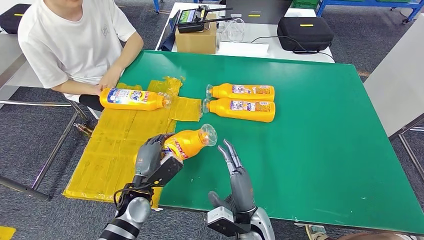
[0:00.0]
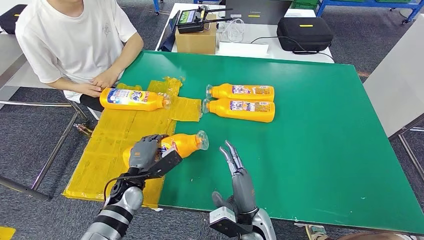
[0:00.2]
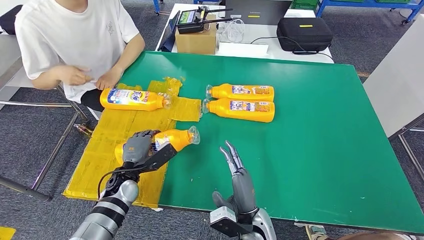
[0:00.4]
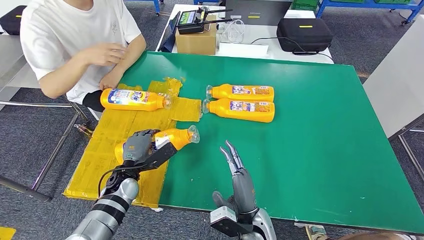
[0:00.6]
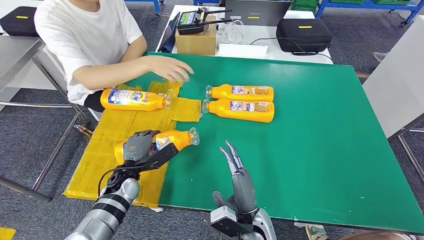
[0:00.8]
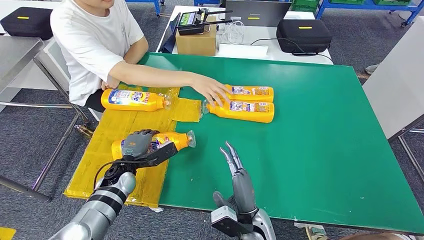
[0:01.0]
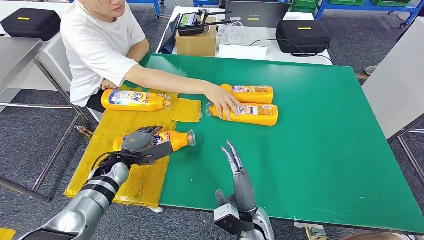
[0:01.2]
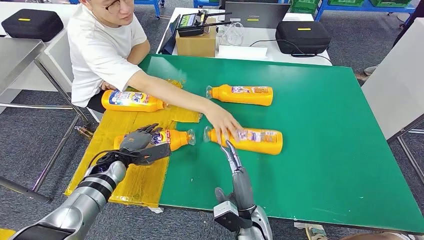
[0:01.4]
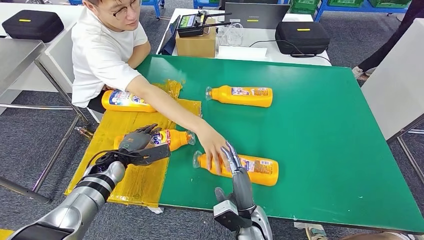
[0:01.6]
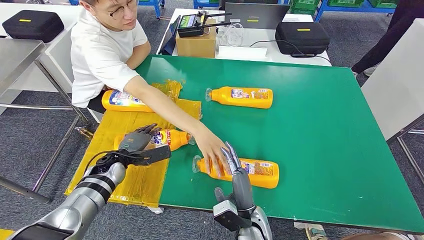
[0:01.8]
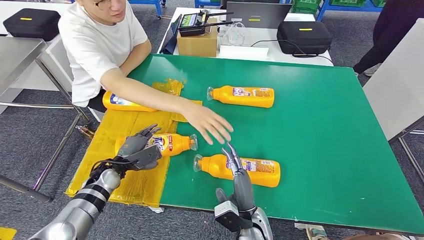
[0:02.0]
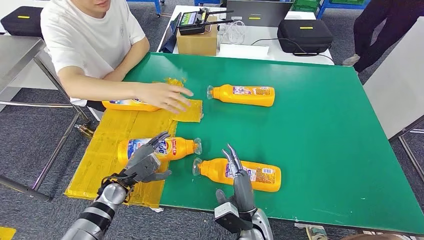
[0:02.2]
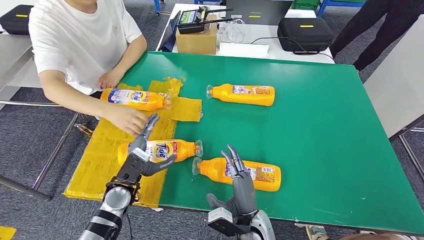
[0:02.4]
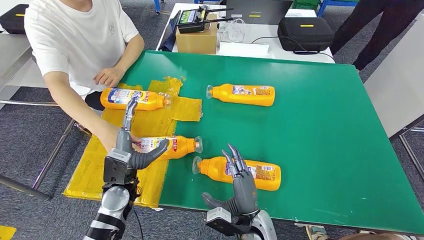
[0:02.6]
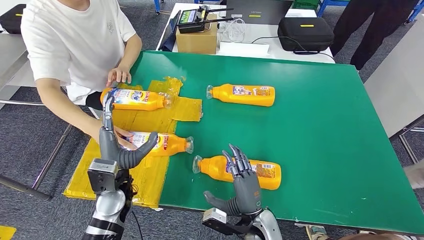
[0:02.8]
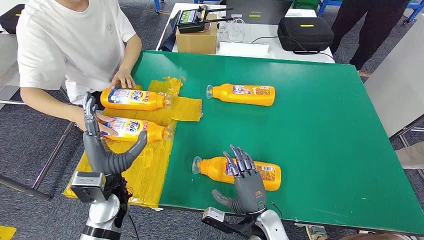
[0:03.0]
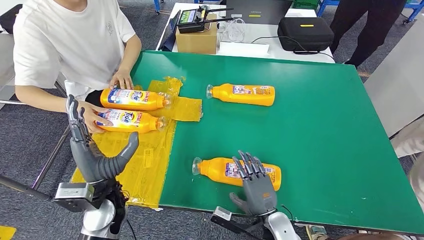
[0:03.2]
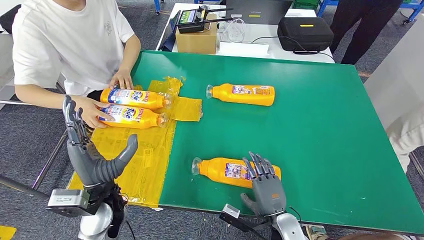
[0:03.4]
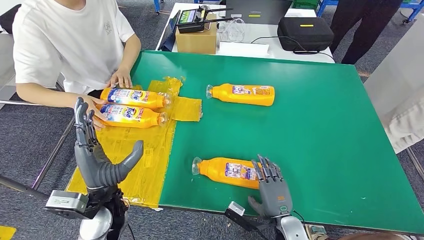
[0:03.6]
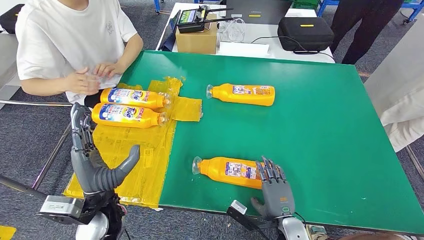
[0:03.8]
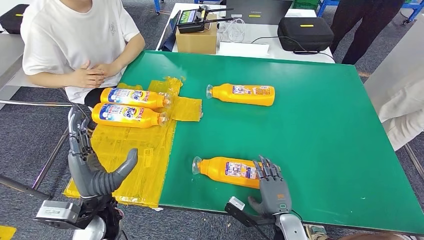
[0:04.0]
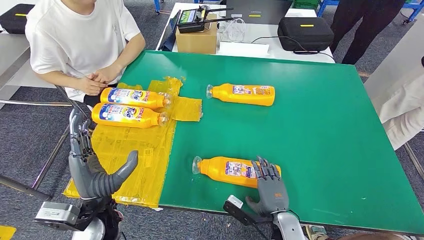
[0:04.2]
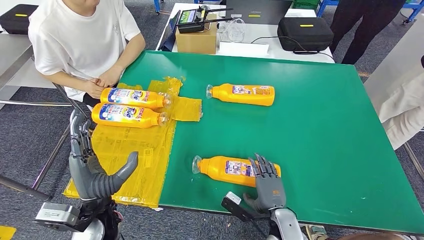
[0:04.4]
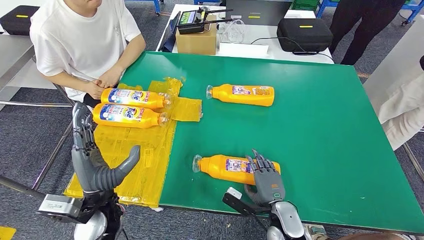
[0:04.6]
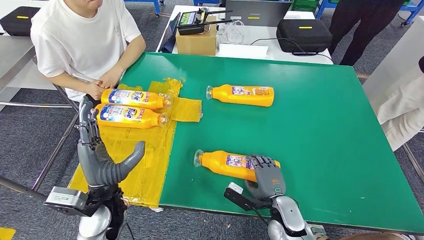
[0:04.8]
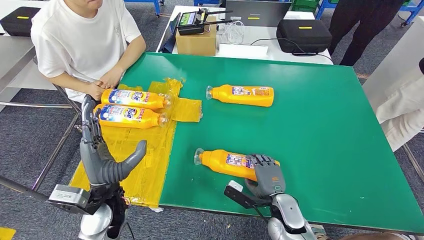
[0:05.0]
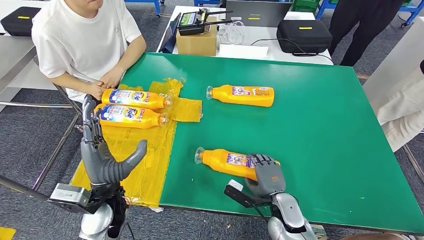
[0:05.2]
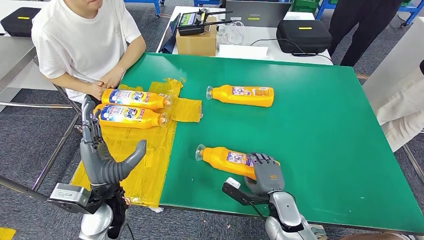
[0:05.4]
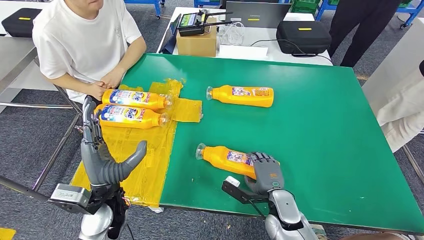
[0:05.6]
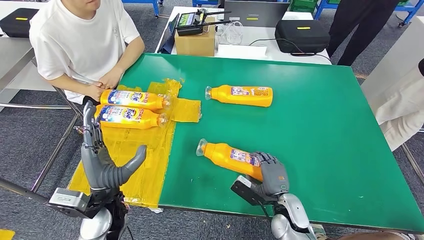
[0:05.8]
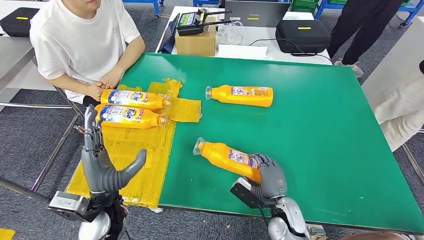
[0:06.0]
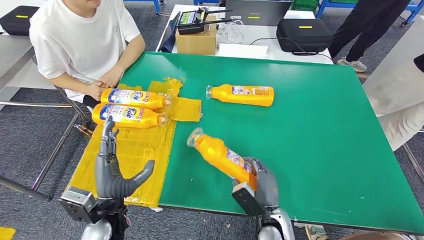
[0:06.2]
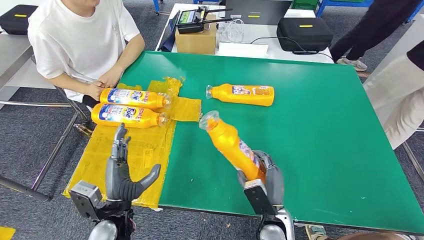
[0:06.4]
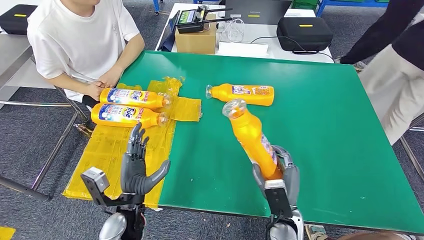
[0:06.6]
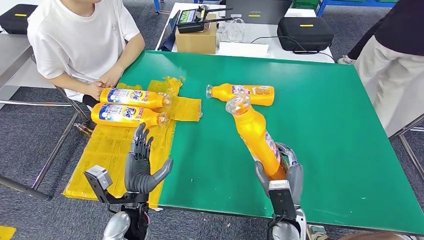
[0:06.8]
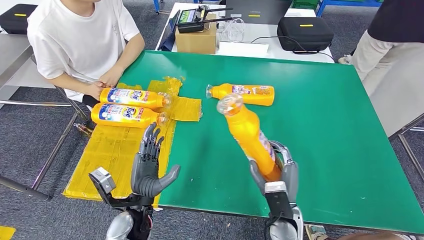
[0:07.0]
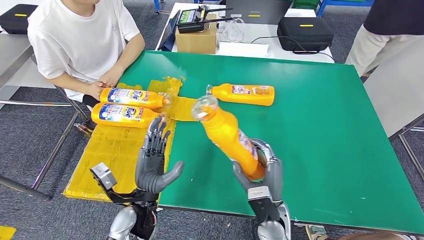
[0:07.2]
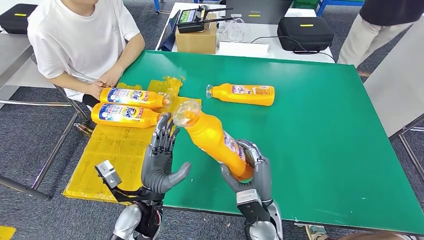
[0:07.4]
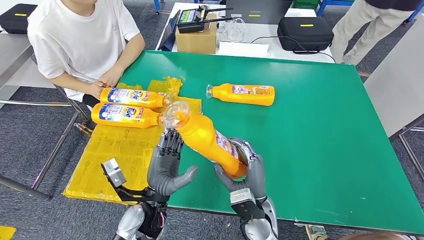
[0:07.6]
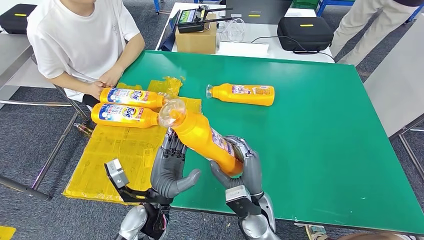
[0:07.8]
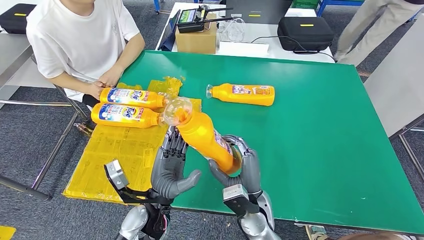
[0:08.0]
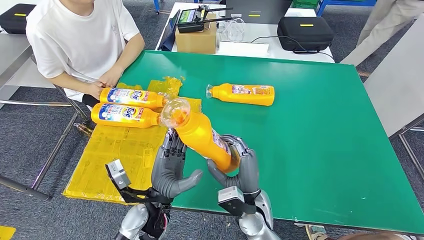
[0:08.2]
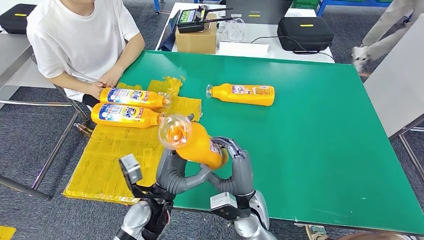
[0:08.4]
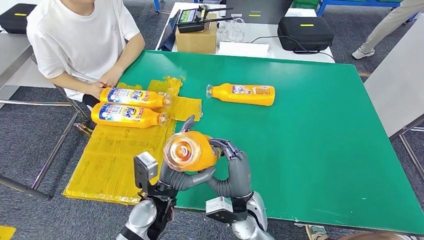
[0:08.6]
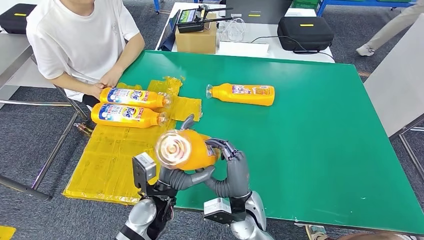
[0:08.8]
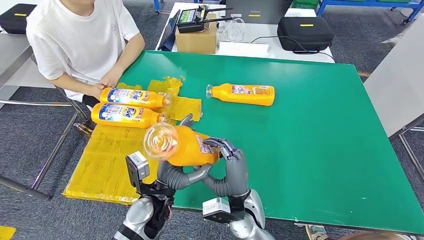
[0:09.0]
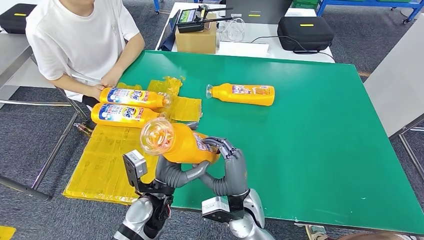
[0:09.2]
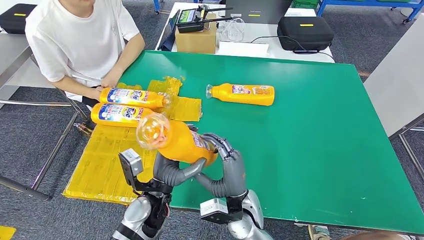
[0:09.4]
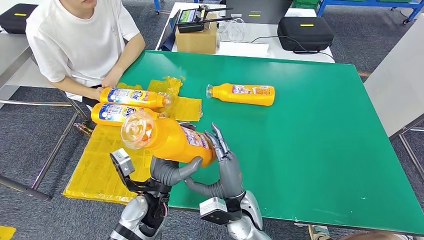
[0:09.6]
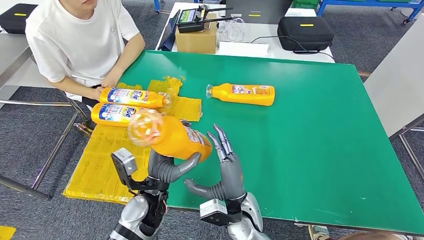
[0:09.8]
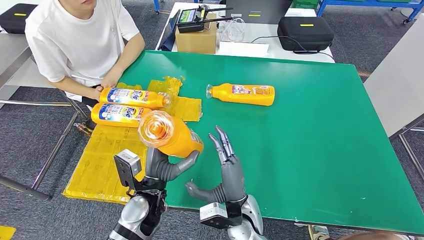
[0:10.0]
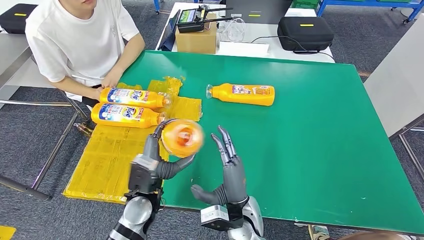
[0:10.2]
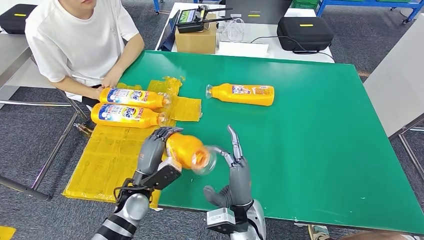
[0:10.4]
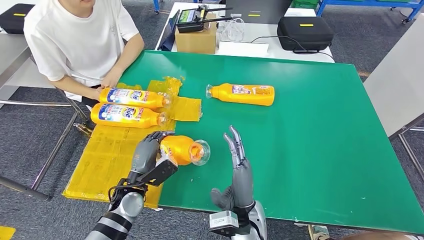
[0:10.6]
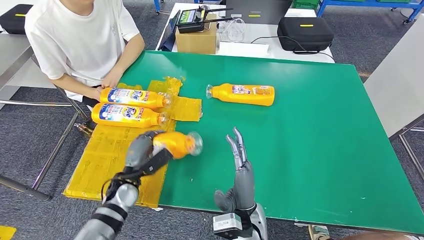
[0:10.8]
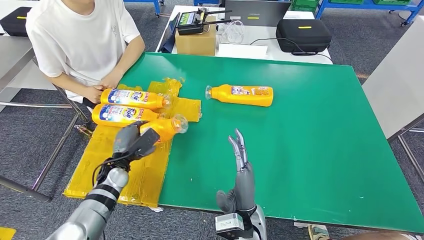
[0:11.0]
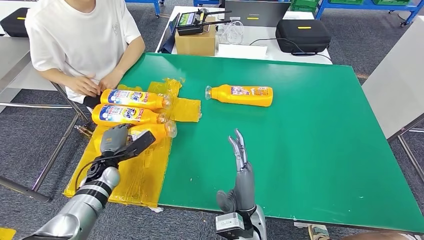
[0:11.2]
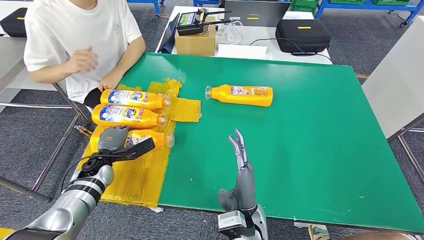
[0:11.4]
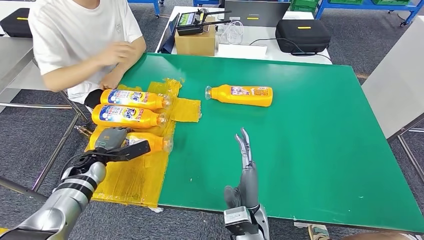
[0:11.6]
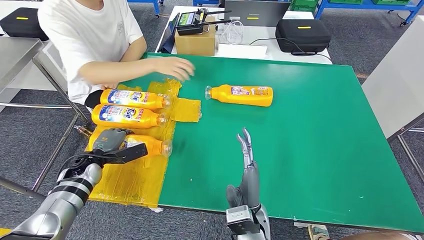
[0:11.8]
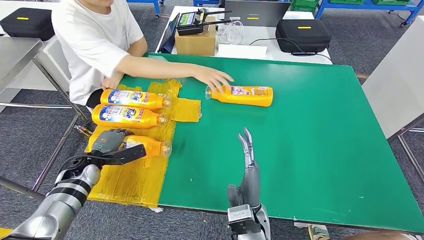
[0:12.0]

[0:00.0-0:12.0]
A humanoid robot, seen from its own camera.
Step, 0:00.0 to 0:03.6: Flip the bottle to face forward.
Step, 0:03.8 to 0:07.2: Pick up the bottle from the table.
0:09.0 to 0:10.4: The left hand moves to the left, about 5 cm.

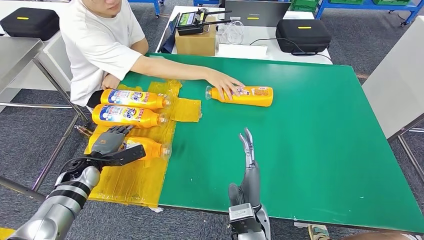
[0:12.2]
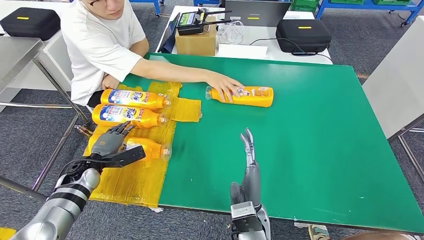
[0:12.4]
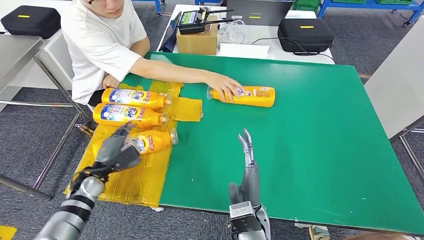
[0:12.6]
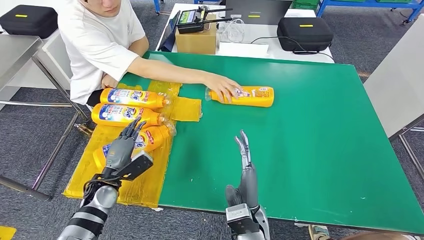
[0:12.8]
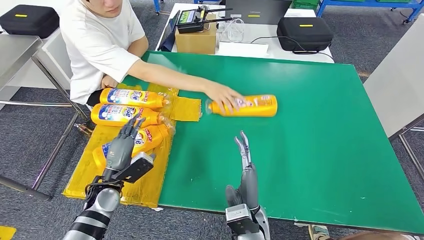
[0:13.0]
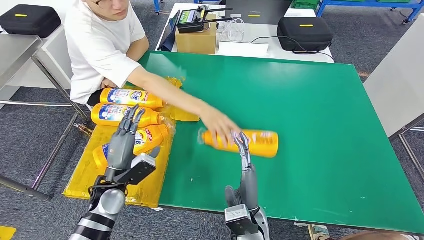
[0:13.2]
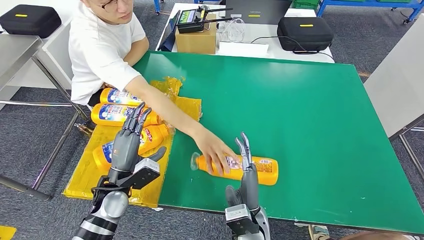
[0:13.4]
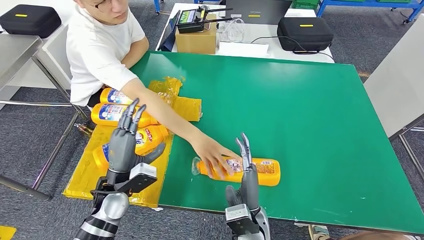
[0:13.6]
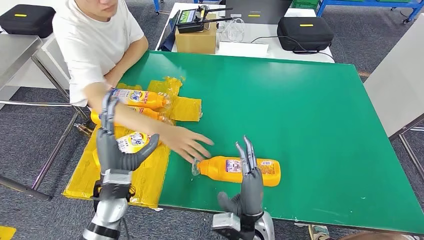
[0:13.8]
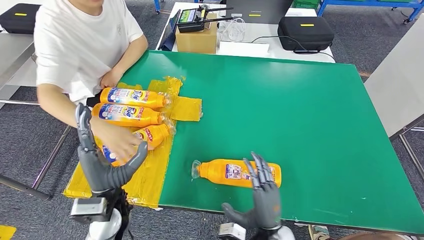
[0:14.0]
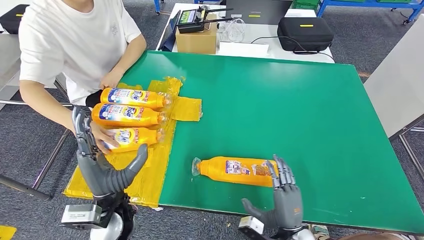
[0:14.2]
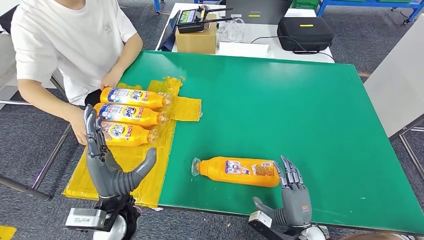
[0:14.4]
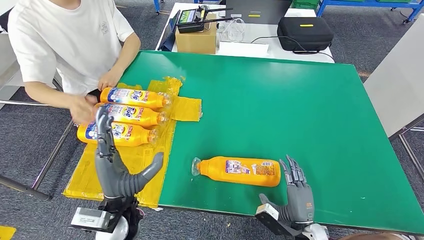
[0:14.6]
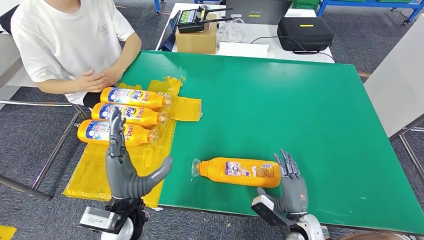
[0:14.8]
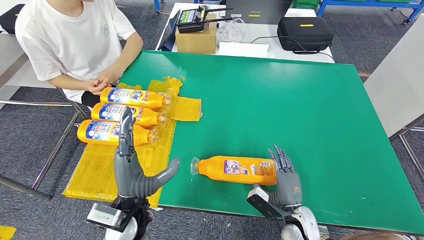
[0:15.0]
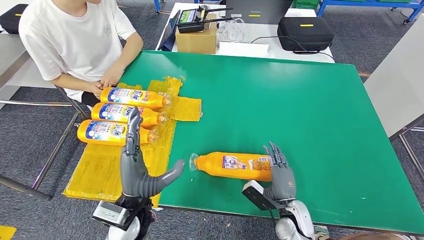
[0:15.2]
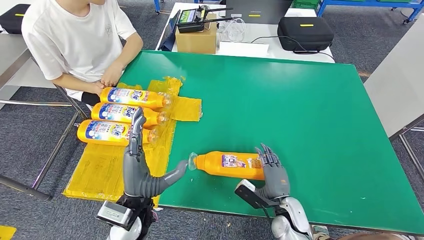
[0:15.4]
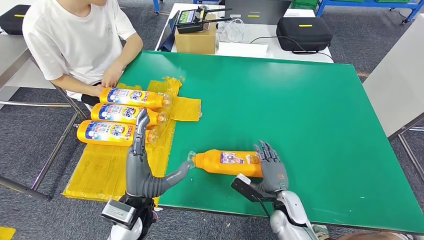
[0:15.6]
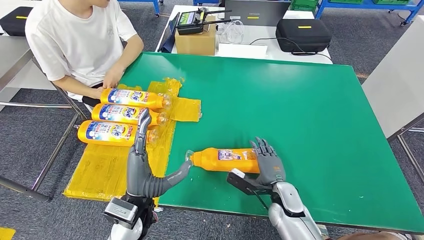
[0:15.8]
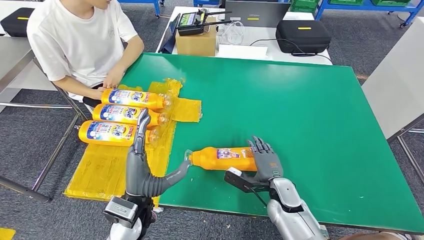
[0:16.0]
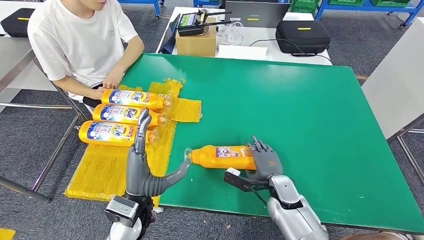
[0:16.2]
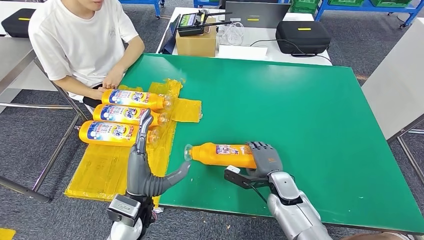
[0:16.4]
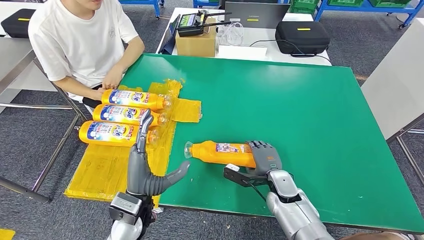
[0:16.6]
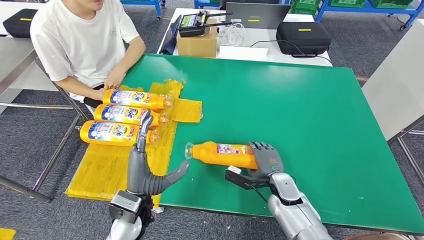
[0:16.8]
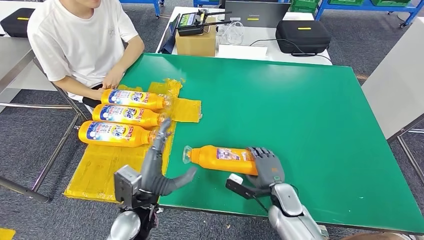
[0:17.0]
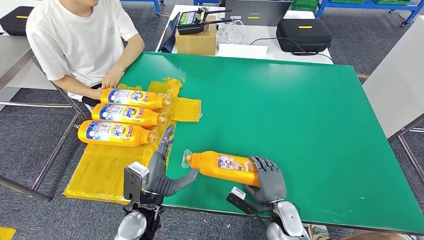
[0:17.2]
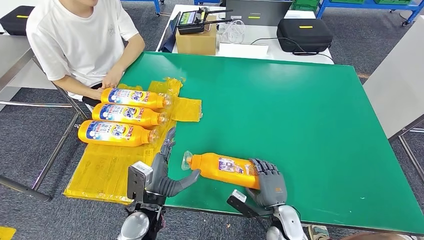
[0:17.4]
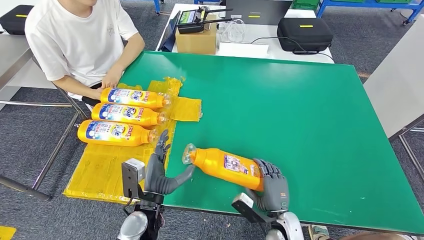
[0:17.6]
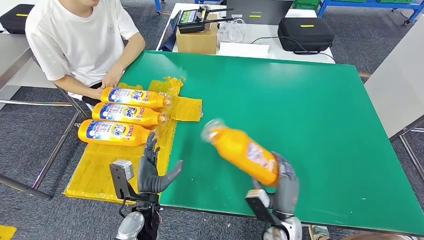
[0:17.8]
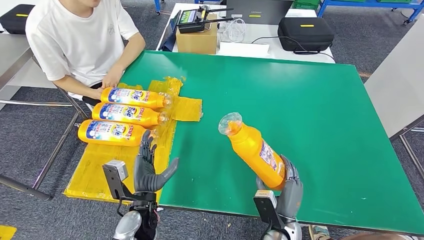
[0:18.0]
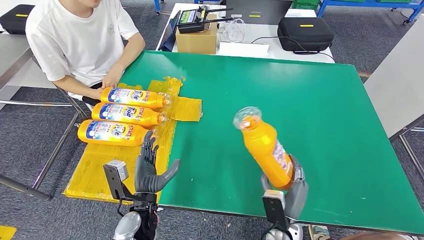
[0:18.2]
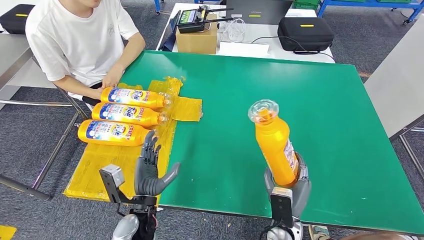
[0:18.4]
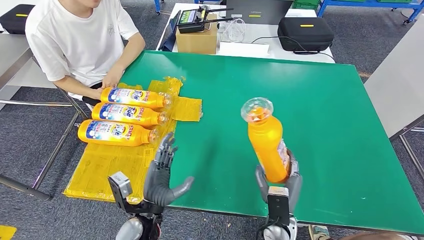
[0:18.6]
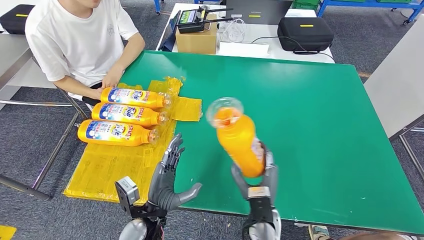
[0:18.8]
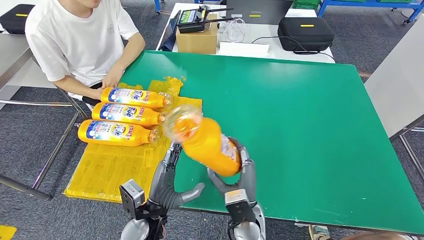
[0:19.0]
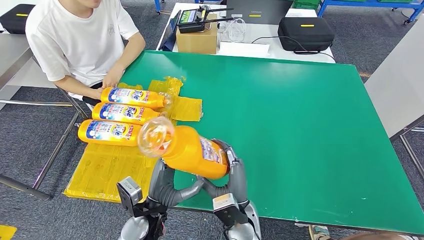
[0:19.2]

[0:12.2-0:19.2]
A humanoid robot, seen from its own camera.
Step, 0:13.8 to 0:17.8: Pick up the bottle from the table.
0:17.8 to 0:19.2: The right hand shifts approximately 15 cm to the left and upward.
